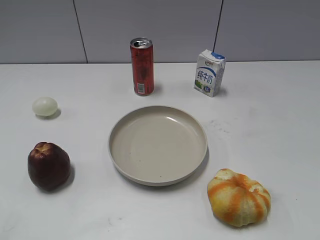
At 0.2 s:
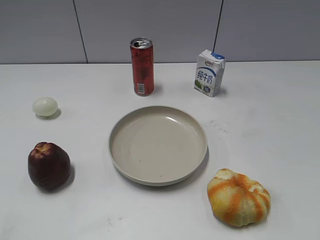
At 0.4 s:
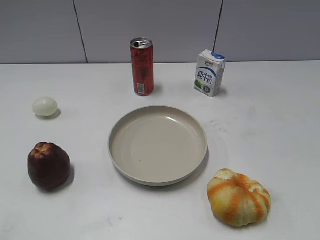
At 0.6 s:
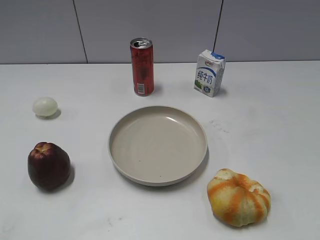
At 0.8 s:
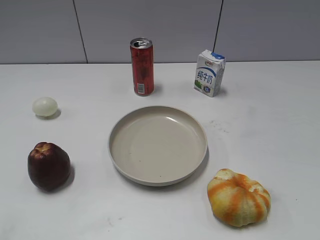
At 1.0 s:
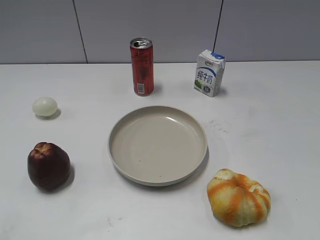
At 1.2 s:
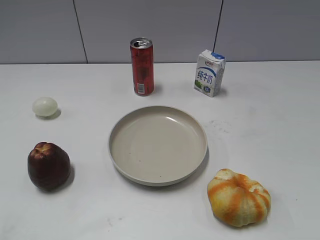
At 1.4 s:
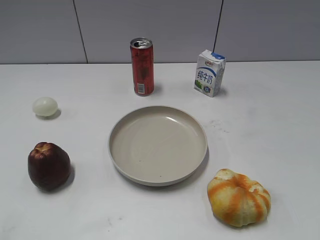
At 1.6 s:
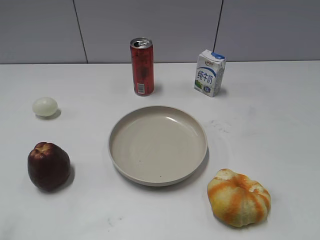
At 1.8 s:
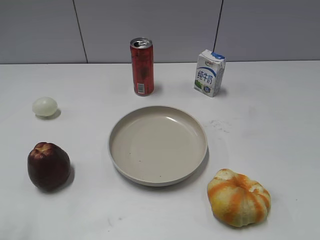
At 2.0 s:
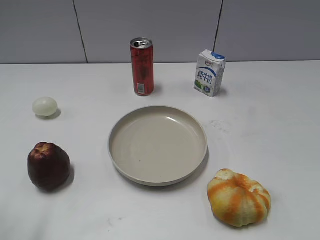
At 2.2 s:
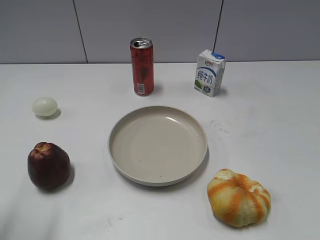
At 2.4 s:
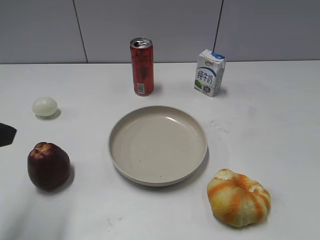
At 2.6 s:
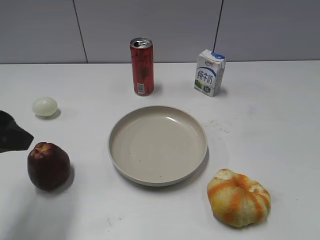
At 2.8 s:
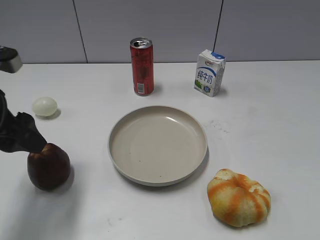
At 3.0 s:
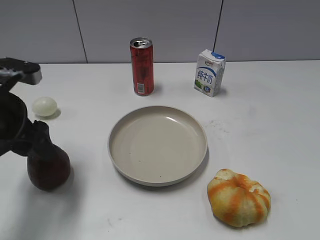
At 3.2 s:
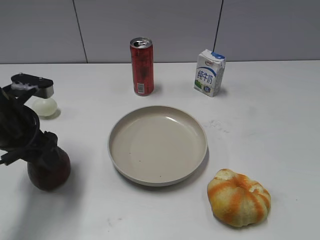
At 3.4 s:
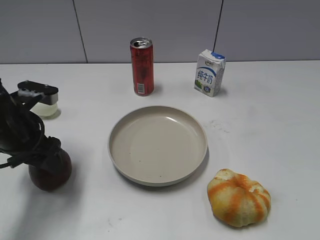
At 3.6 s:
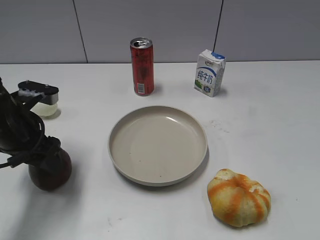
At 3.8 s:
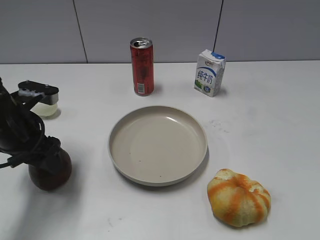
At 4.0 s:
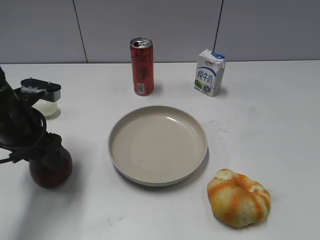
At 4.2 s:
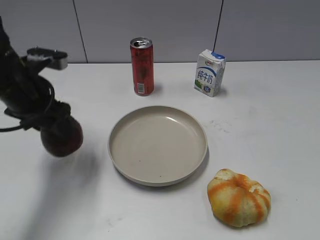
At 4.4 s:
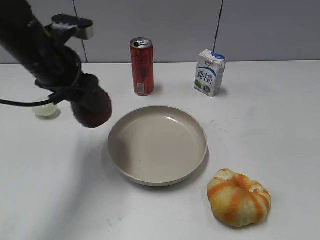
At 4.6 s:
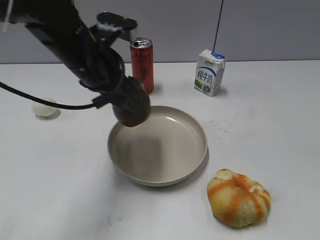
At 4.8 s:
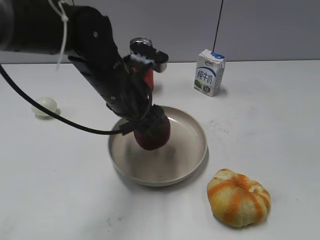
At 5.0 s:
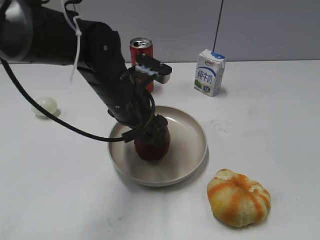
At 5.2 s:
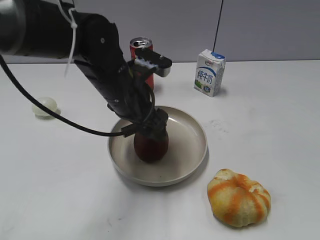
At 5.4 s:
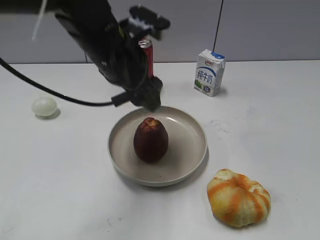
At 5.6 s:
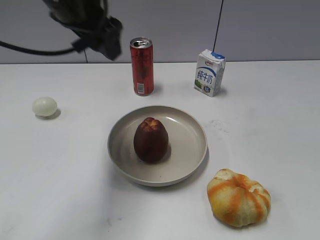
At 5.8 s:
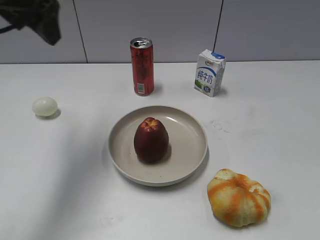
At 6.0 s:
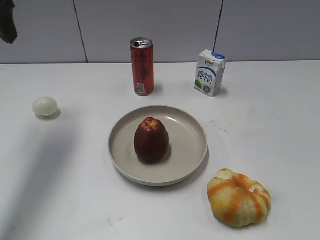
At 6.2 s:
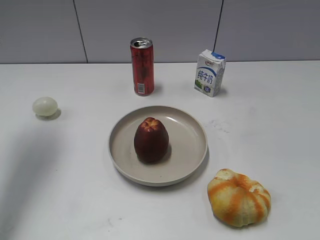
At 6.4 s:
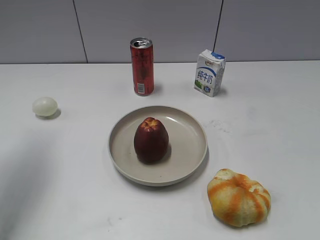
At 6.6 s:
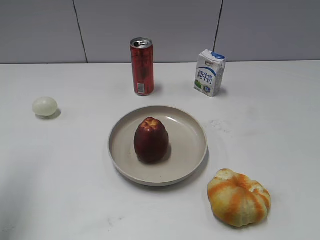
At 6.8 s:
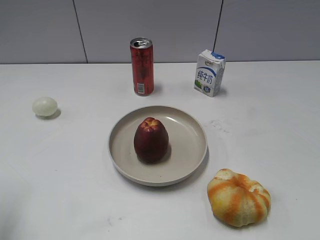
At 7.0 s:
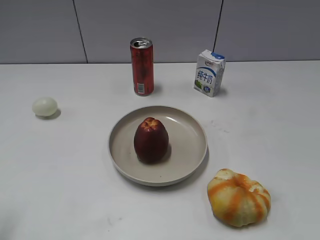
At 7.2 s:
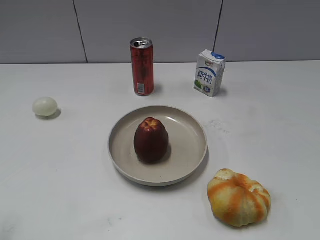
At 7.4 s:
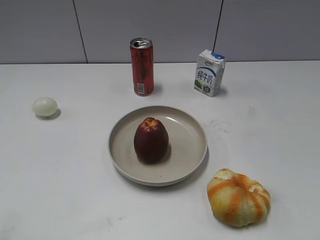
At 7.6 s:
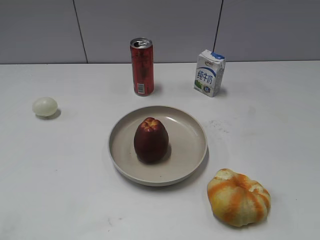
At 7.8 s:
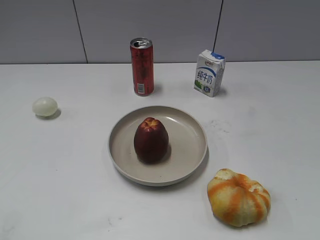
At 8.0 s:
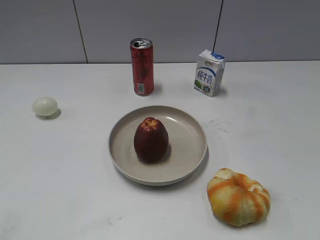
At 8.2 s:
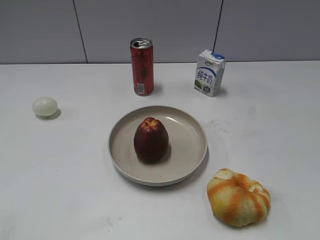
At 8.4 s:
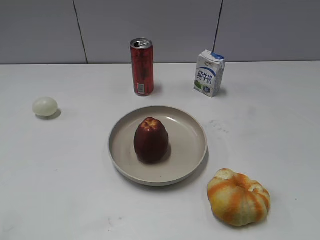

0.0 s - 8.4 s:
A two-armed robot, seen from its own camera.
Step, 2.4 s - 3.8 s: Grasp the apple with left gripper.
Step, 4.0 s - 5.2 s: Place the apple on the plate with left gripper.
1.4 s - 2.8 s: The left gripper shifts some 20 cm forward and to the right, and closes its fingers.
2.8 s - 4.2 s: The left gripper moves forward, about 5 cm.
4.2 s - 5.6 s: The left gripper shifts approximately 15 cm upward and to the right, and opens up.
5.6 s - 7.0 s: The left gripper shifts approximately 30 cm backward, to the left and downward, and closes its fingers.
